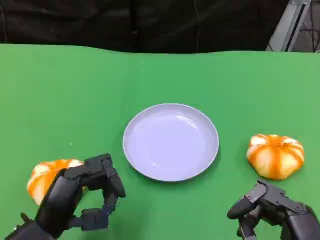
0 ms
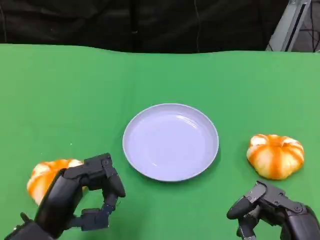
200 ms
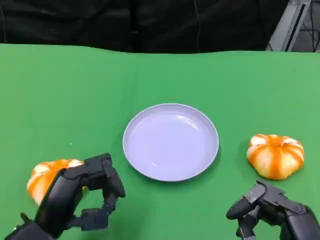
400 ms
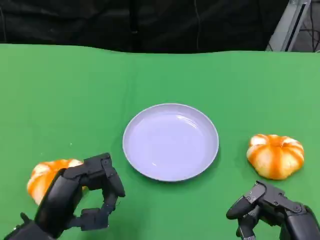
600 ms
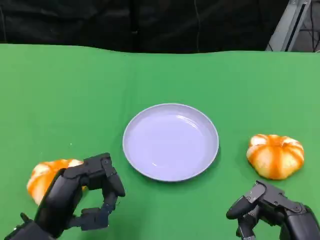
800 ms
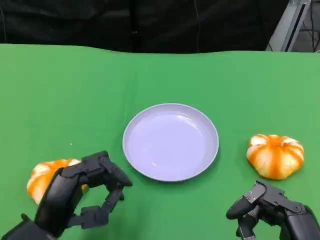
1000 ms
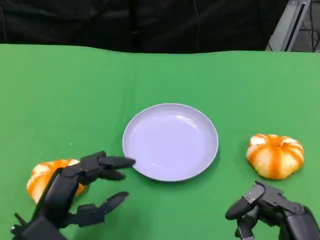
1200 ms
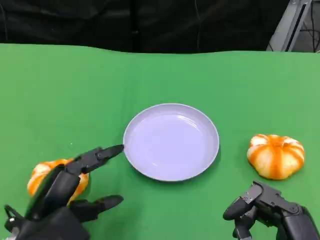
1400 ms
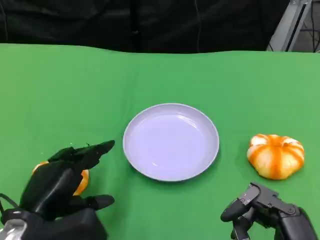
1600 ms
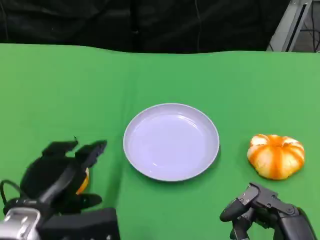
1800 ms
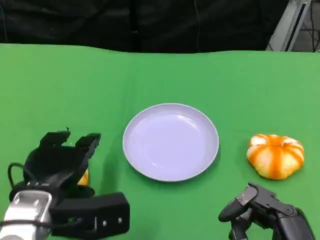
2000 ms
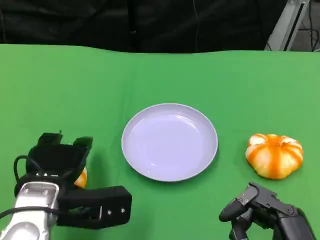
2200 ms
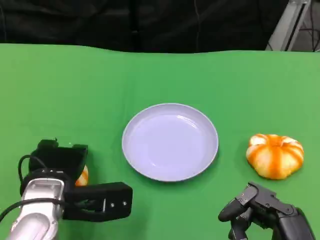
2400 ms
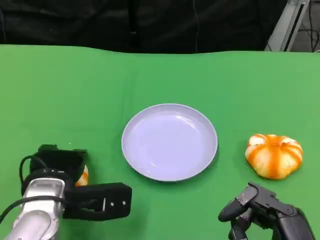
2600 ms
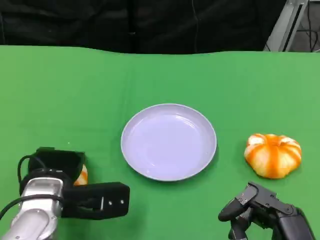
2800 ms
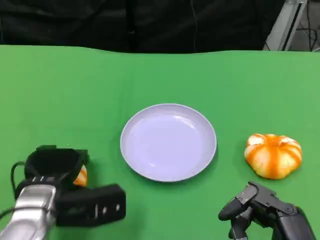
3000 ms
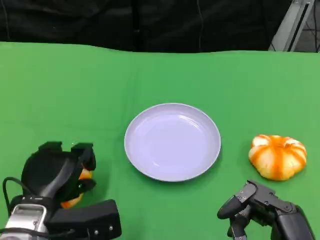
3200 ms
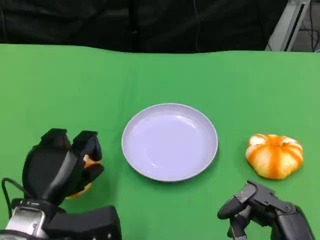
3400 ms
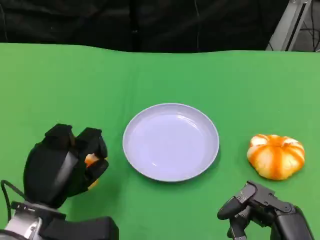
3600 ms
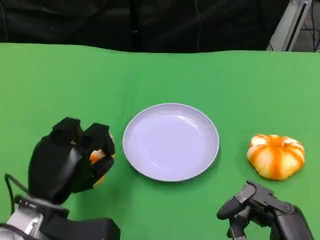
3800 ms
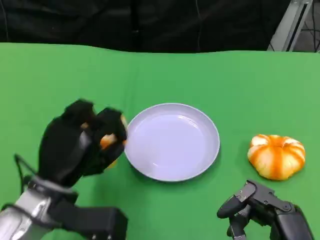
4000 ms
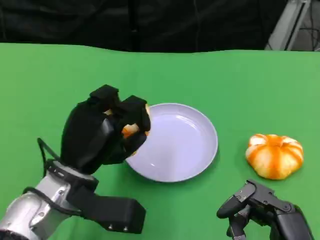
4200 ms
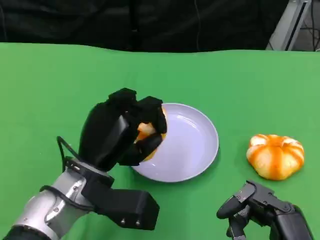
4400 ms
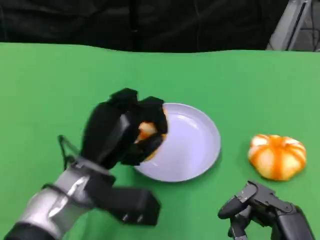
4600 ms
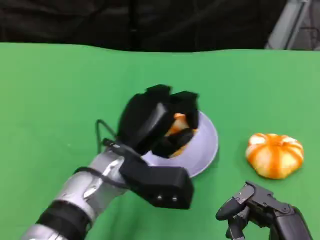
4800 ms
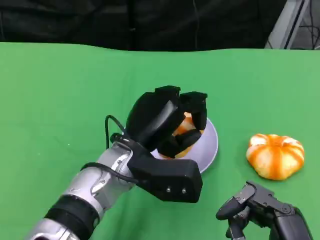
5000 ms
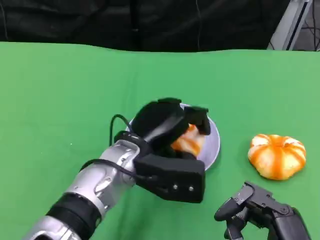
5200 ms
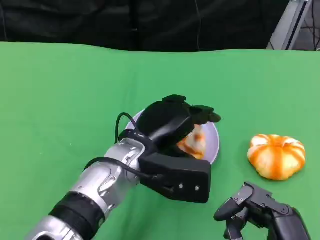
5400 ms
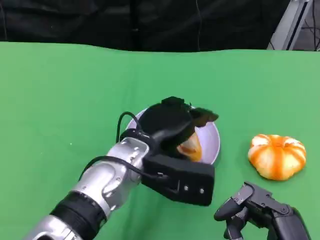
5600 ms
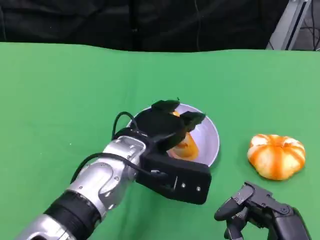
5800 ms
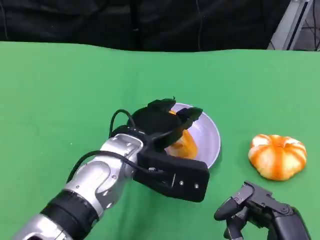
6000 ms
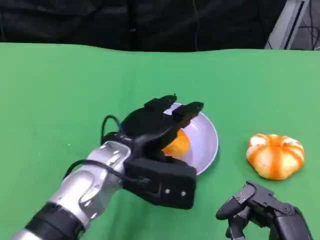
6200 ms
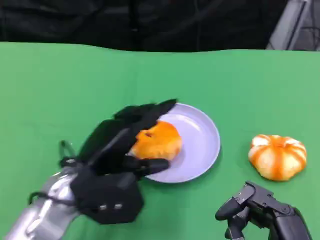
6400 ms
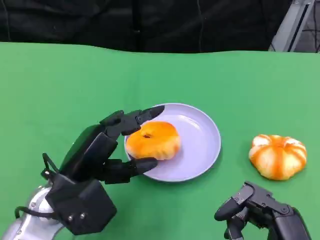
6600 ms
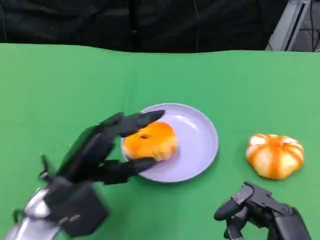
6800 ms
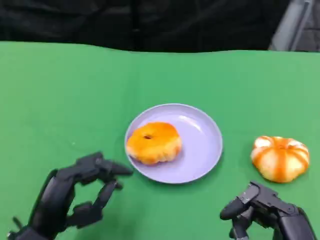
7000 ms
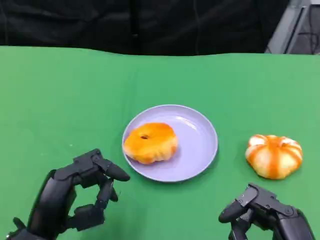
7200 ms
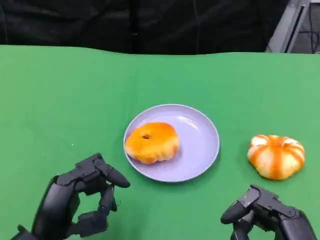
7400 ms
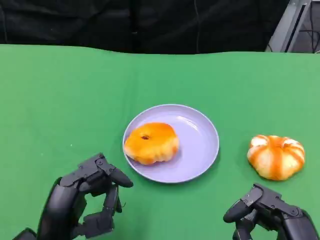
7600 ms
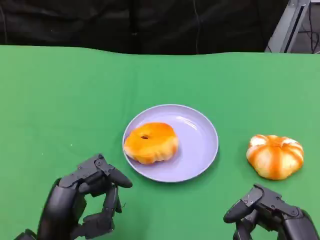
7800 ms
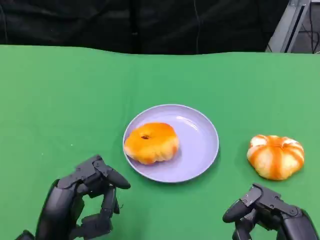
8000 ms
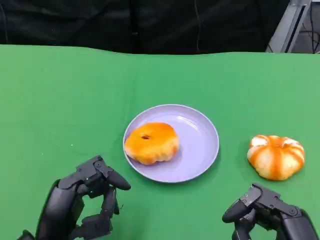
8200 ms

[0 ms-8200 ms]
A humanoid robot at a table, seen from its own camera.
Task of the whole recording: Grasp the bread from the table and place it into the plate.
3200 ms to 5000 ms: The left hand shifts roughly 15 cm to the right, forward and upward.
5000 ms to 6600 ms: The left hand moves to the left, about 10 cm.
6600 ms to 8200 ms: The left hand moves backward, approximately 10 cm.

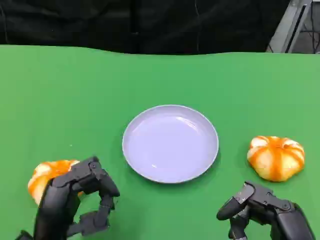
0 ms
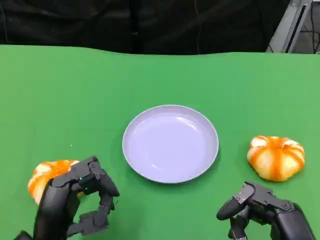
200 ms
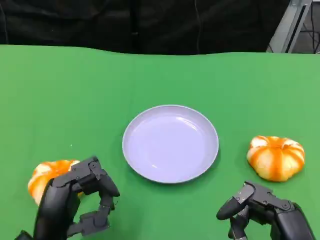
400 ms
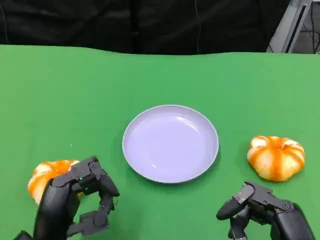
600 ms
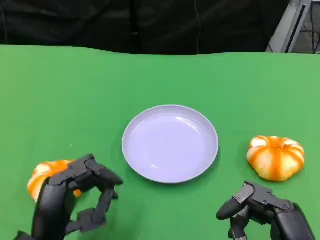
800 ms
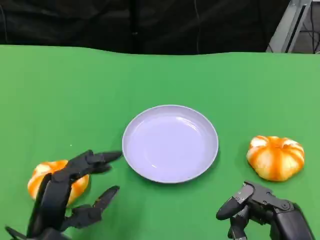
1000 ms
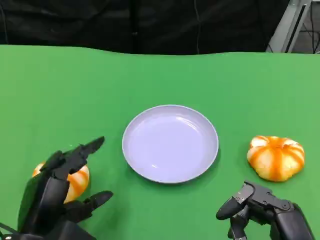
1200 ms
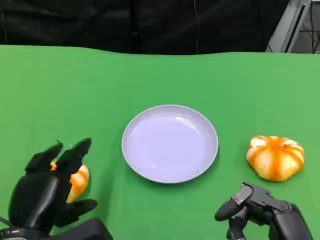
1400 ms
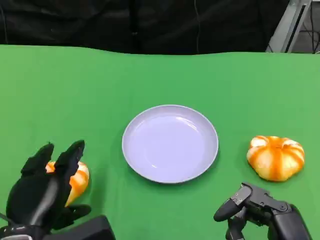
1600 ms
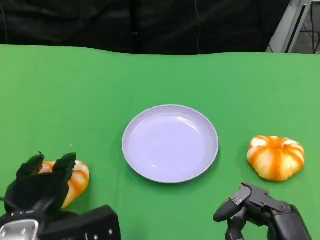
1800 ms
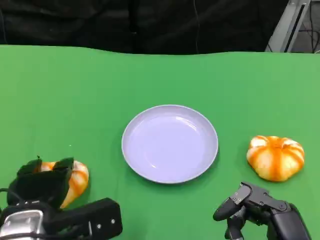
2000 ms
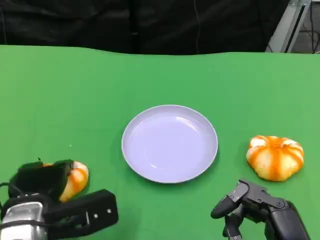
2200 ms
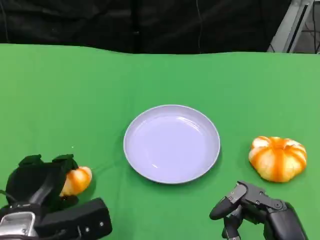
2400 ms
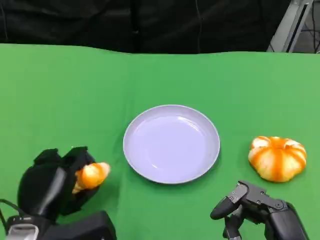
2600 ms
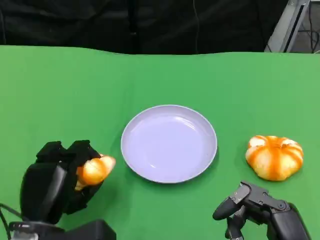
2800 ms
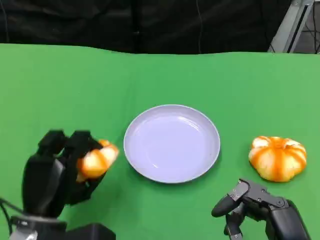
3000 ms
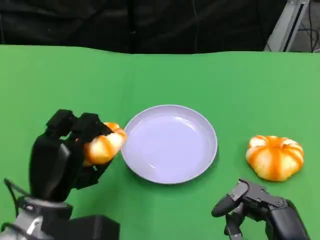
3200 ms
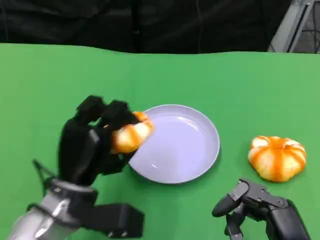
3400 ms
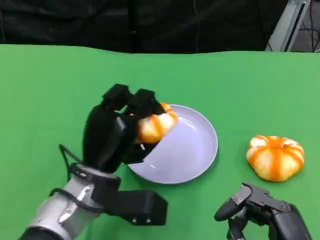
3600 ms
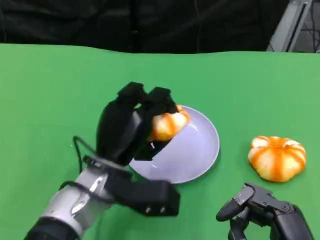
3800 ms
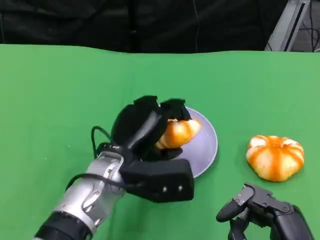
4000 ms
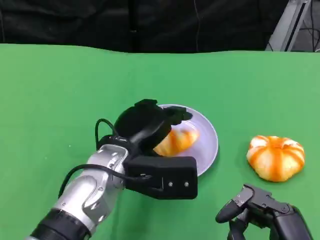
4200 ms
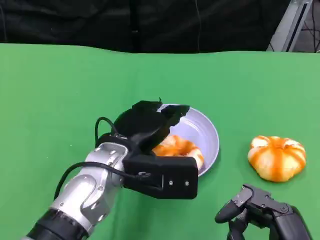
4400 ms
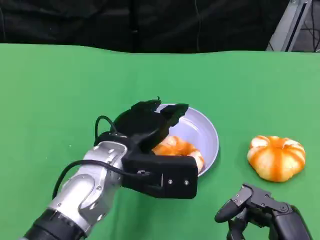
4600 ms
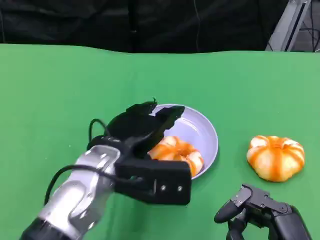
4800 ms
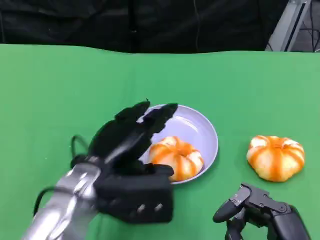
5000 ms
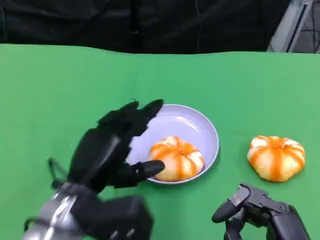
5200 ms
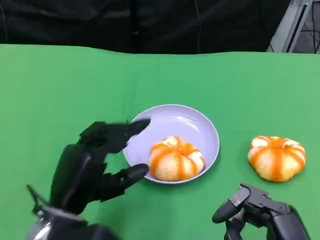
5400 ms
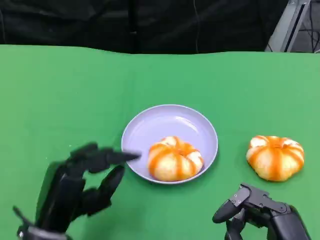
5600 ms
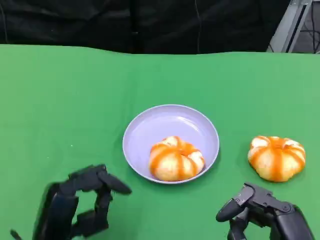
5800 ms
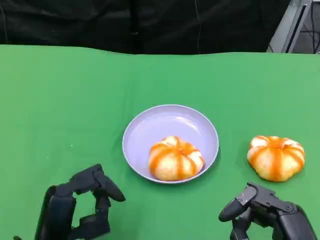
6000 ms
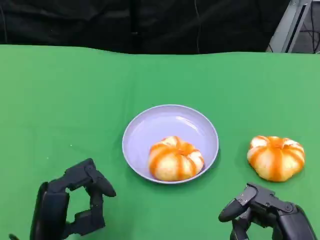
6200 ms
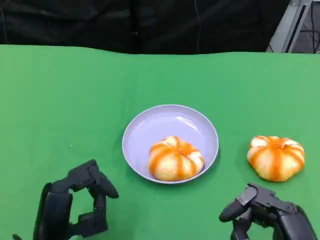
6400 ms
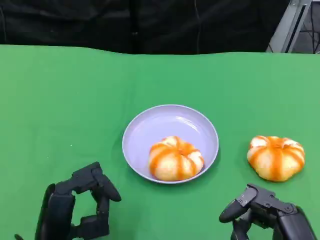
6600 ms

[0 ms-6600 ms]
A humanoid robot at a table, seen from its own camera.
Task of the whole recording: Grasp the bread from the table and place it into the plate.
1600 ms to 3200 ms: The left hand goes about 5 cm forward.
3200 ms to 5000 ms: The left hand shifts some 5 cm upward.
5000 ms to 6600 ms: The left hand is displaced backward and downward by about 10 cm.
